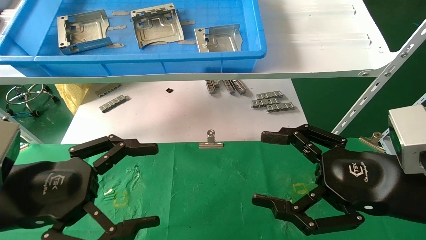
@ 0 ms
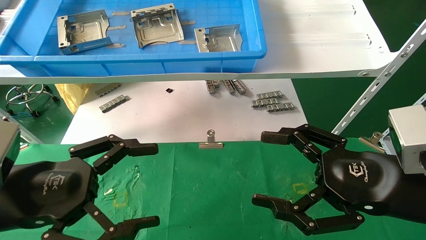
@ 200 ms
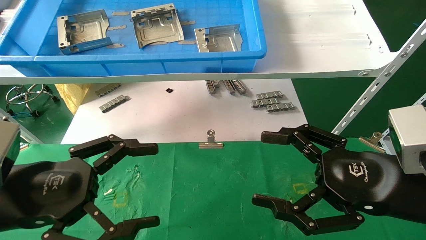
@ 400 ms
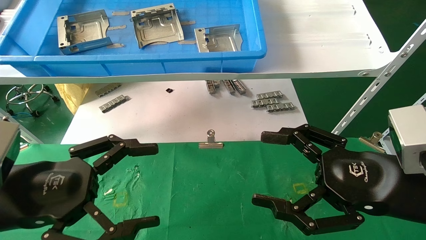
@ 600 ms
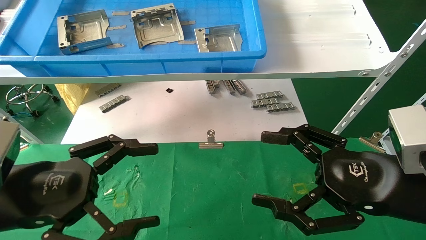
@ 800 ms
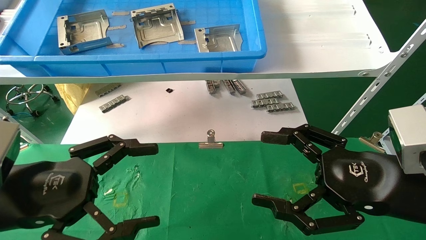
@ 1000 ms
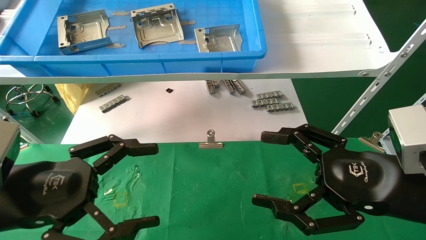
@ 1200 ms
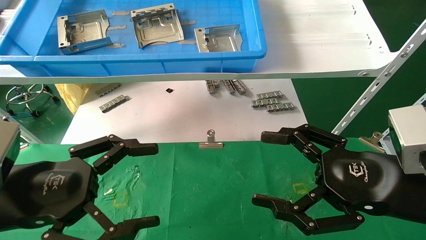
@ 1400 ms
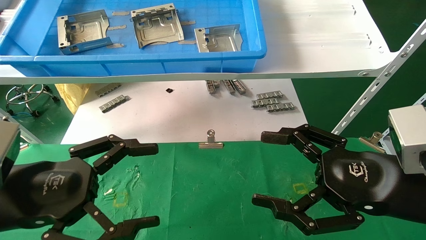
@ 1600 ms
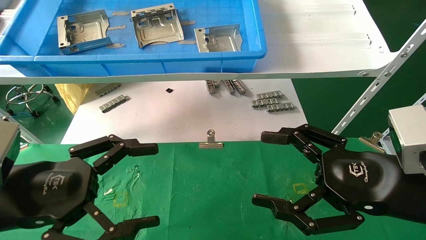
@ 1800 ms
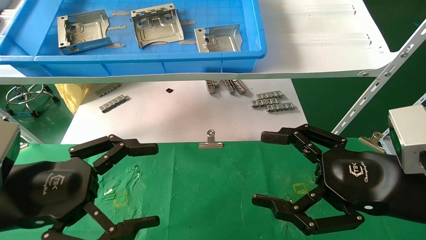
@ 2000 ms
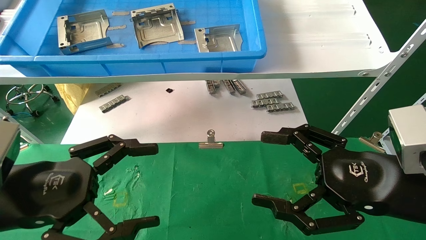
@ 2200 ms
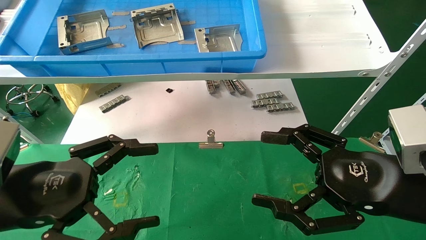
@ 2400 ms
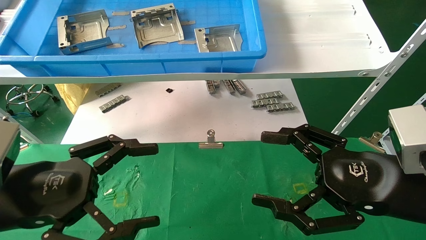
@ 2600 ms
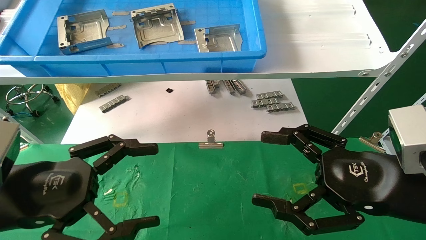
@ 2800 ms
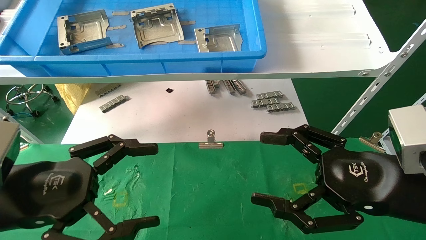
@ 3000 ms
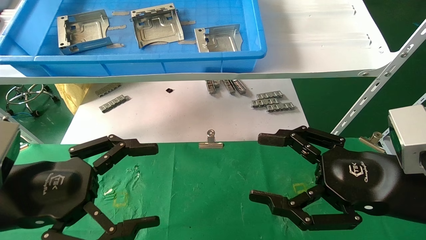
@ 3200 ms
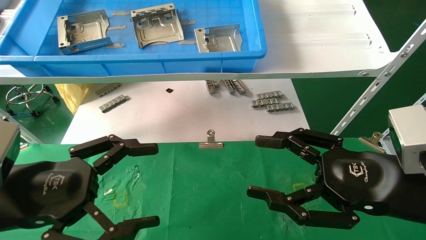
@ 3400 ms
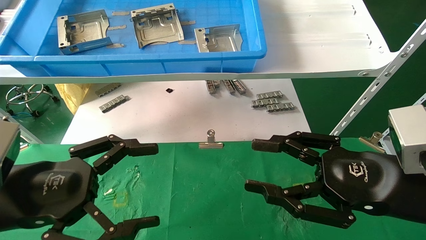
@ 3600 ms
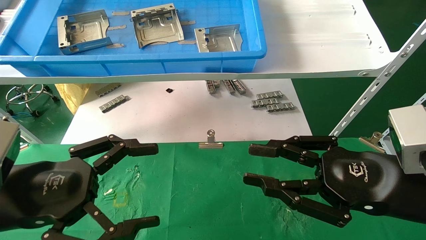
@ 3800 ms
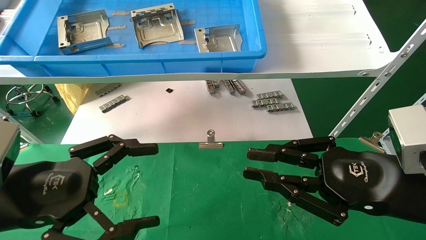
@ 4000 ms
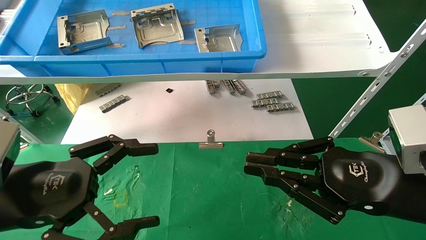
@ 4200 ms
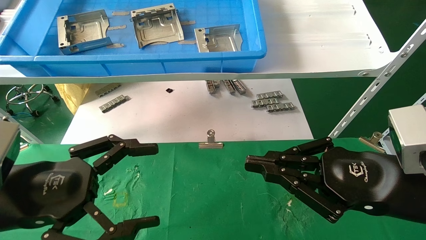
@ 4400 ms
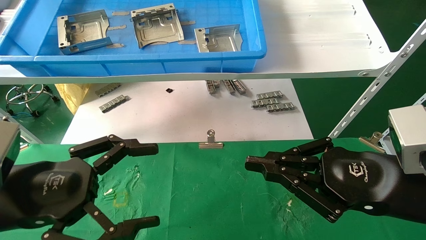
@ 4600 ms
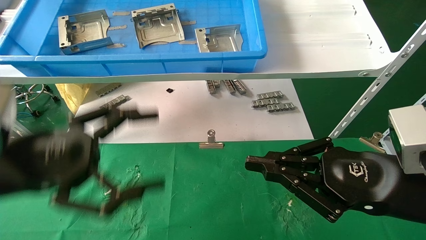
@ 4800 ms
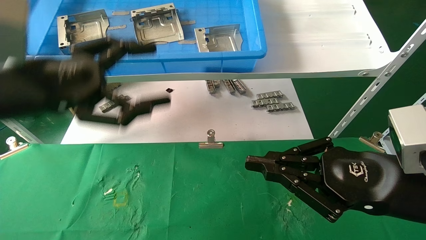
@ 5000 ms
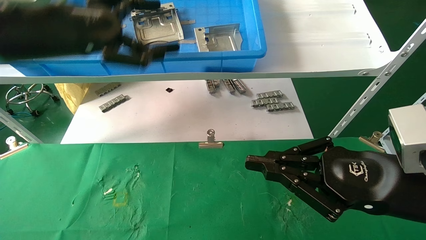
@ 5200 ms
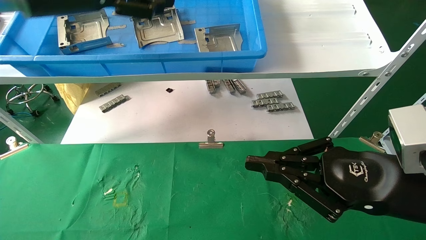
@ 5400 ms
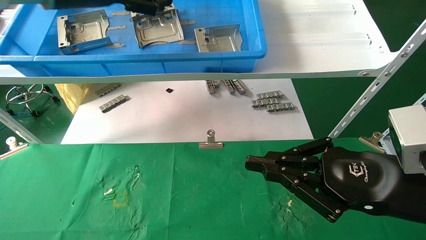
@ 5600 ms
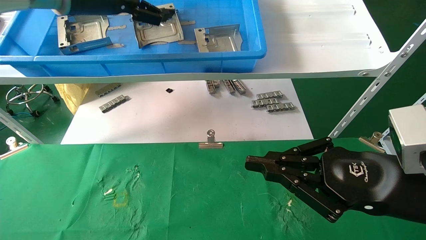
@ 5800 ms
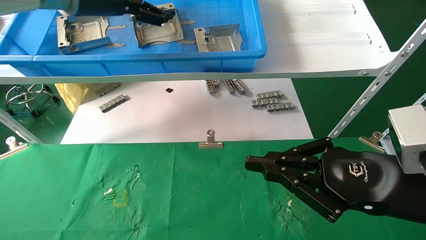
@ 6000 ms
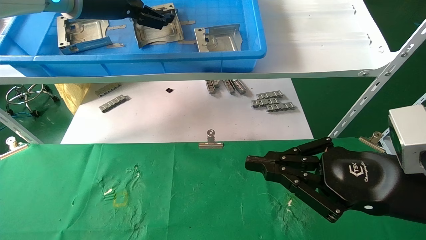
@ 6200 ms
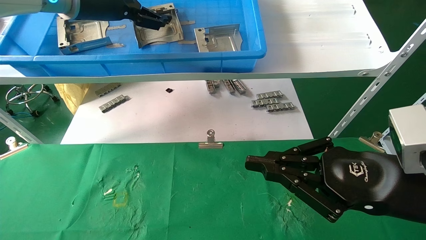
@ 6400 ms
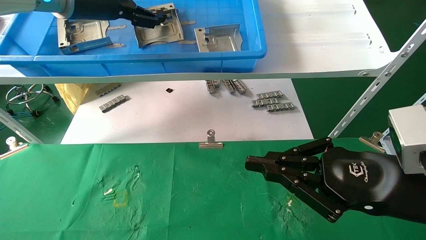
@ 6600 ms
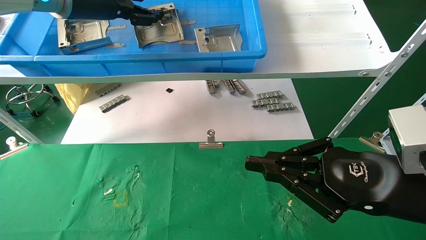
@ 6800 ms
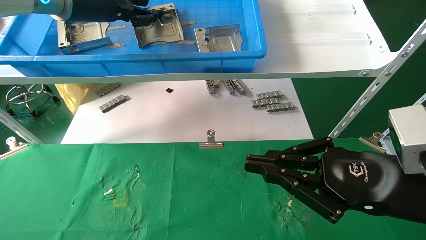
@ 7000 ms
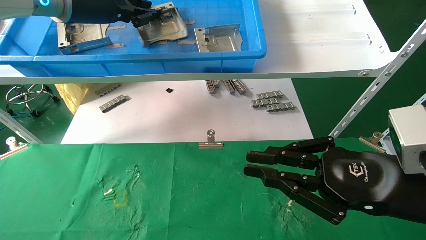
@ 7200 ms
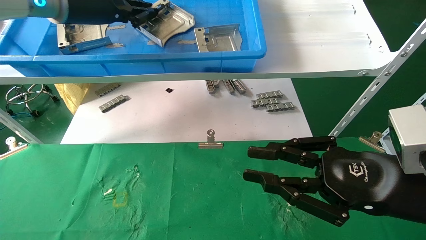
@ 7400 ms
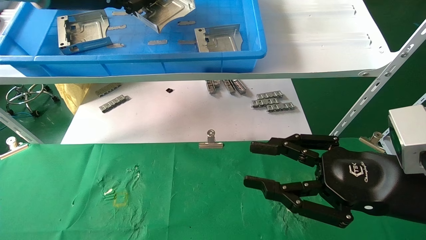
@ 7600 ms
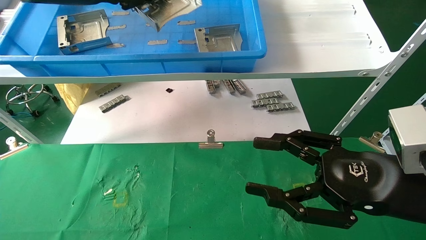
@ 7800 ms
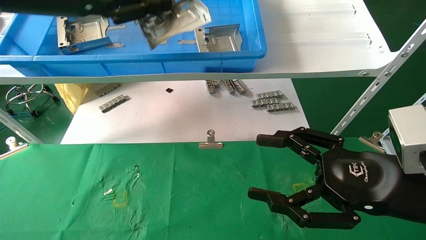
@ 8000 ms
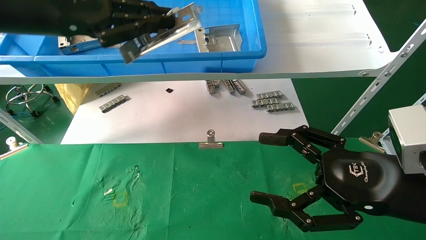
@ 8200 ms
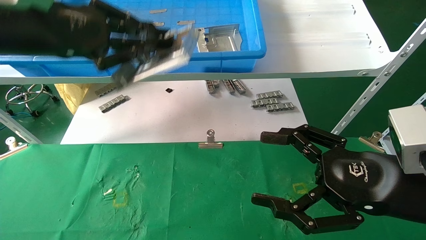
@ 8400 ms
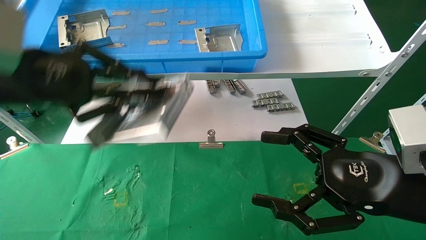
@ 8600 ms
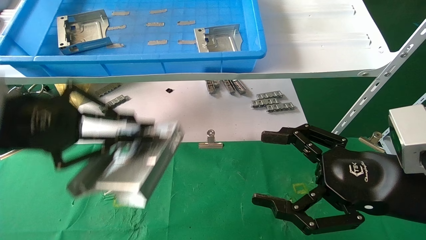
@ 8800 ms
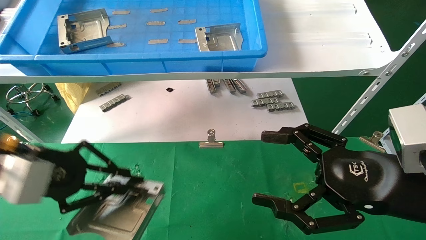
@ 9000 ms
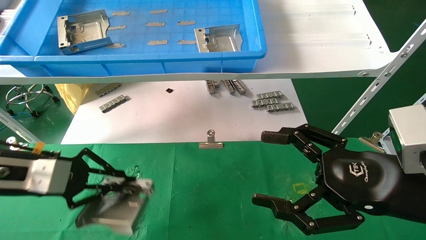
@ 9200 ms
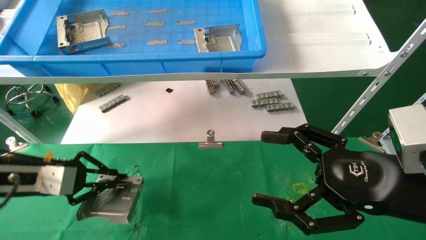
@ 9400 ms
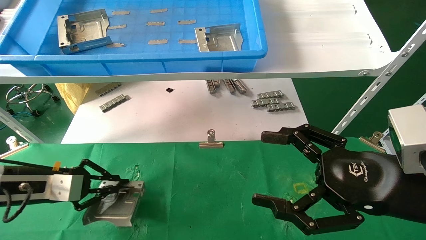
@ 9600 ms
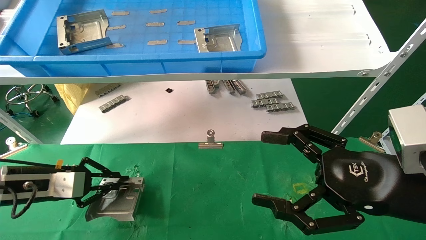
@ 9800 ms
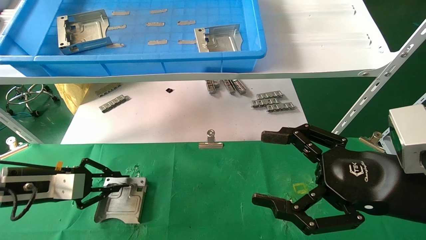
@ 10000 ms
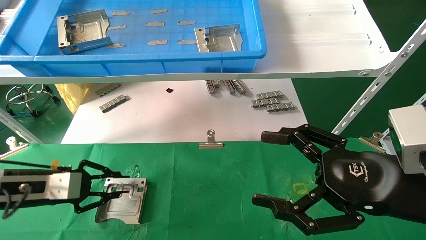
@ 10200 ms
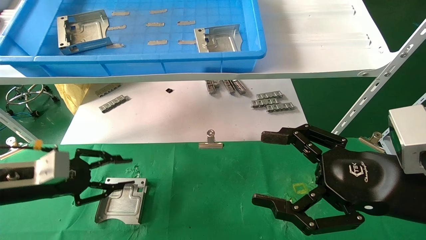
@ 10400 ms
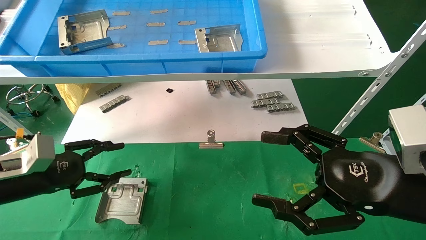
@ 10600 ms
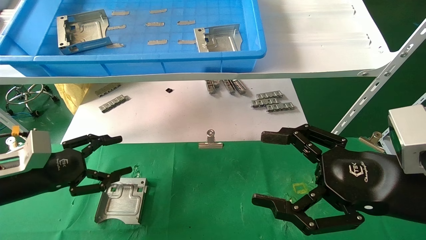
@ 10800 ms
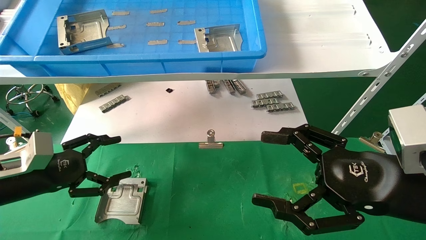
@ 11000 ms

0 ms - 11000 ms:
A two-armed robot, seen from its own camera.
Task of the whole recording: use the mechanical arm to pick up the parts and place them on the table.
Step, 4800 ms - 7400 ms: Pick up the hard drive bracket from the feeding area.
Step, 7600 ms - 10400 ms: Place the hard drive bracket into the box.
0 ms - 3200 ms: Both grippers stay put.
3200 ms - 4800 ms: The right gripper closes its fingers, while the left gripper shifts about 5 cm upward.
4800 ms - 6200 ms: The left gripper moves forward and upward, about 25 cm.
6200 ms - 7800 ms: The left gripper goes about 5 cm backward, and closes up, while the right gripper opens.
7800 ms - 9400 ms: The left gripper travels downward by approximately 30 cm; the right gripper opens.
9400 ms - 11000 ms: The left gripper opens its fingers.

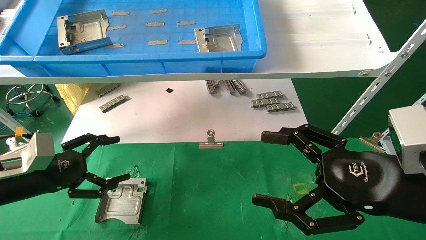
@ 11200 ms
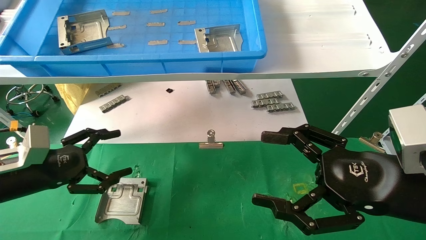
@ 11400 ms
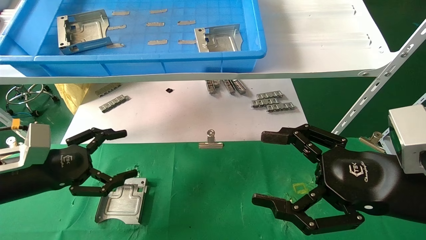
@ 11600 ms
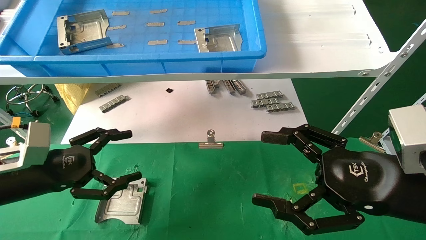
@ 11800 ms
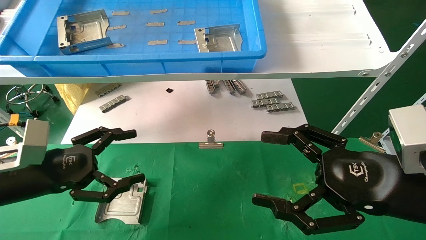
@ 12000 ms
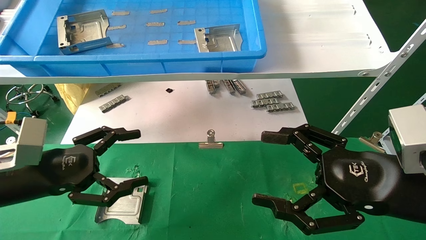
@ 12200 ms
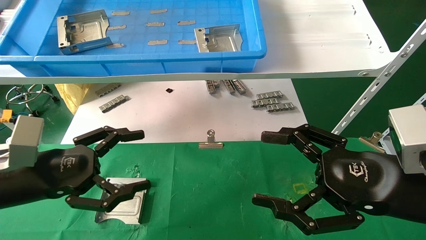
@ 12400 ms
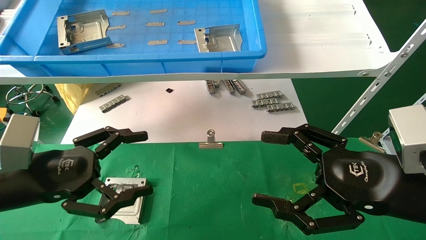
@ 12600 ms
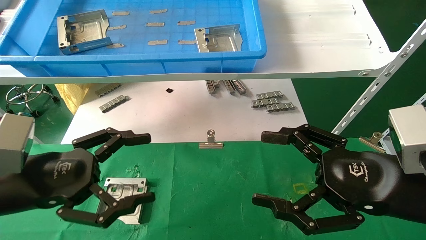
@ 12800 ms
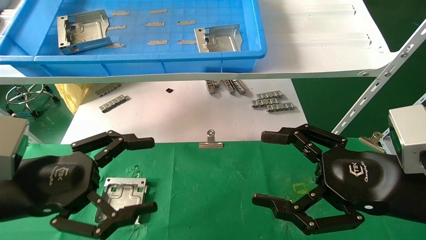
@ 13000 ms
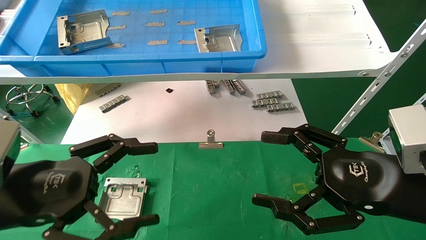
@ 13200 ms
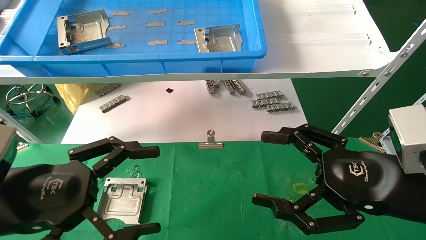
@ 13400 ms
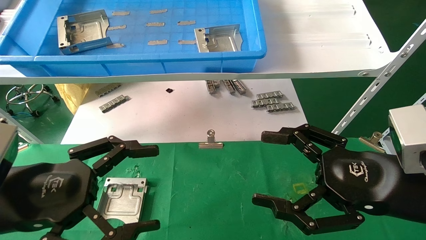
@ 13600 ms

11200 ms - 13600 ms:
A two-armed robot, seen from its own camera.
Task of the whole recording: use the mechanical arm to pick up the parts and place them on the table.
11200 ms - 12400 ms: The left gripper moves to the right and backward, some 10 cm.
12400 ms - 13600 ms: The left gripper moves backward, some 5 cm.
